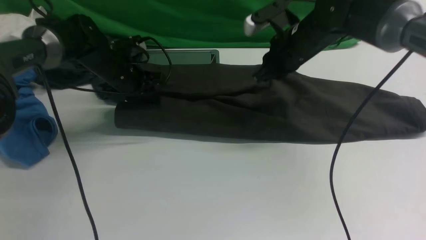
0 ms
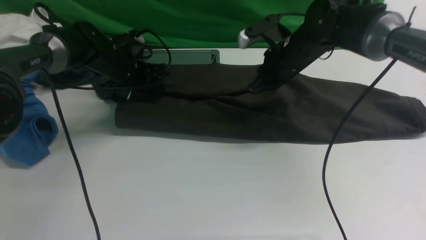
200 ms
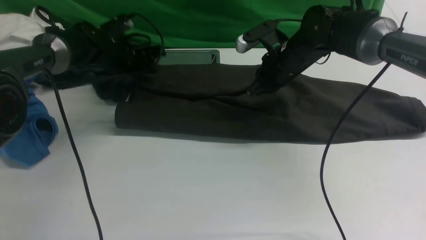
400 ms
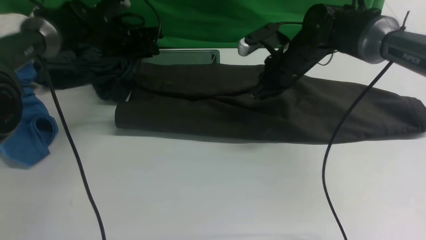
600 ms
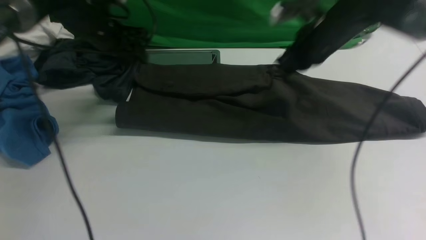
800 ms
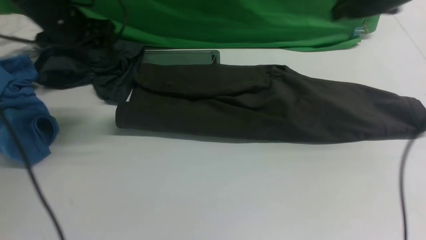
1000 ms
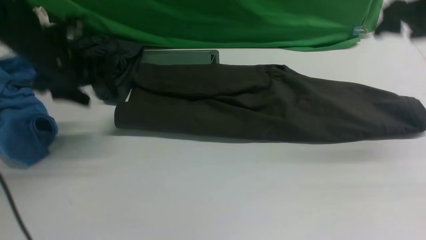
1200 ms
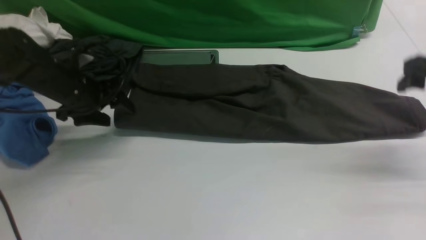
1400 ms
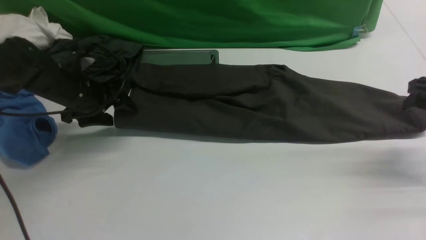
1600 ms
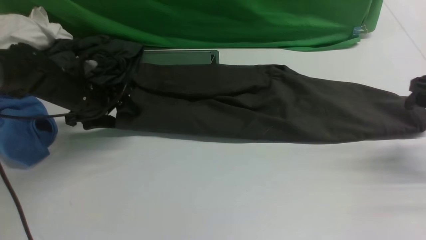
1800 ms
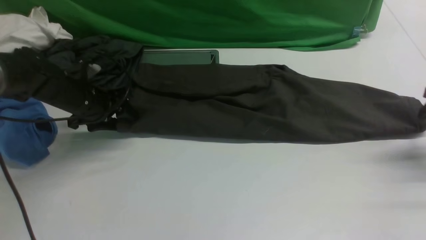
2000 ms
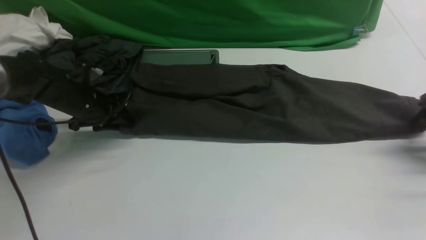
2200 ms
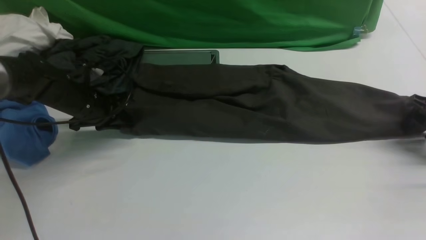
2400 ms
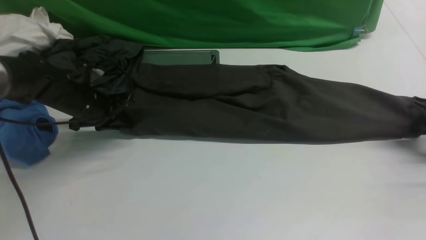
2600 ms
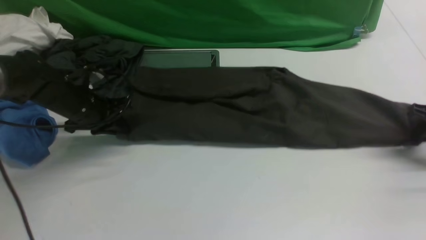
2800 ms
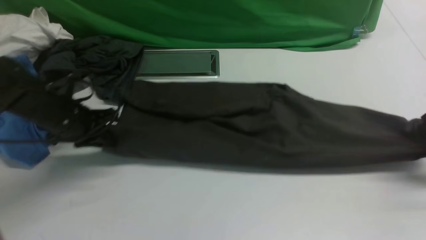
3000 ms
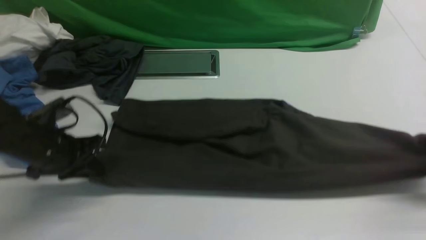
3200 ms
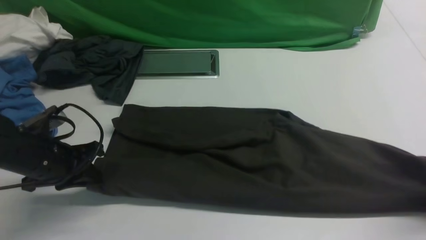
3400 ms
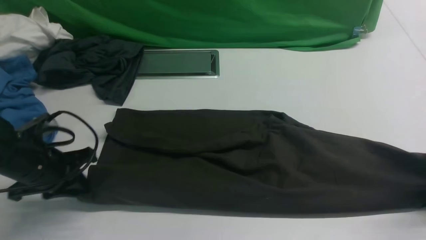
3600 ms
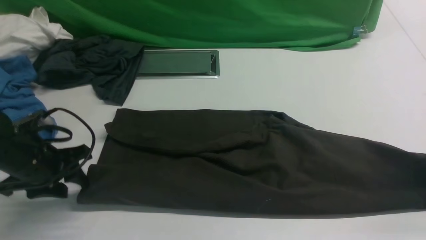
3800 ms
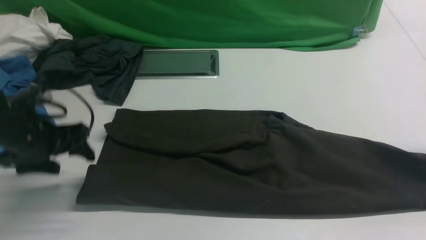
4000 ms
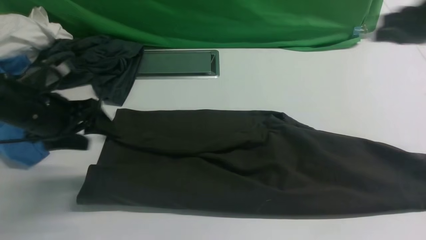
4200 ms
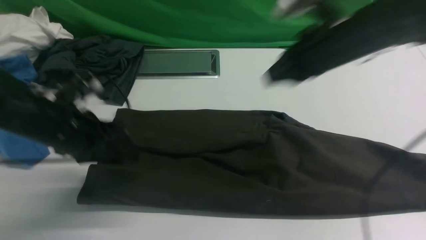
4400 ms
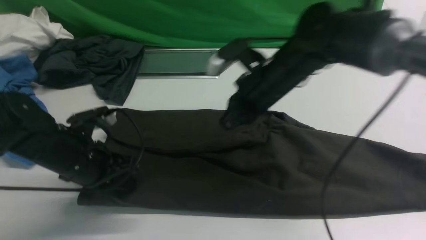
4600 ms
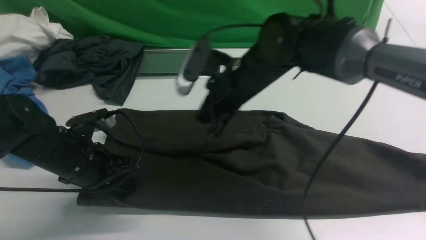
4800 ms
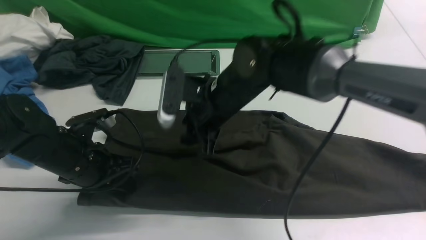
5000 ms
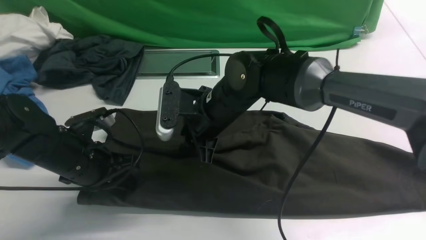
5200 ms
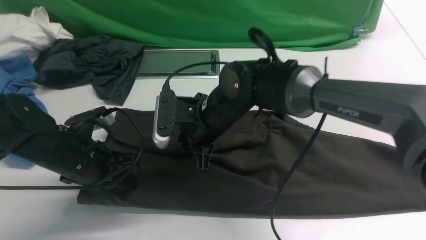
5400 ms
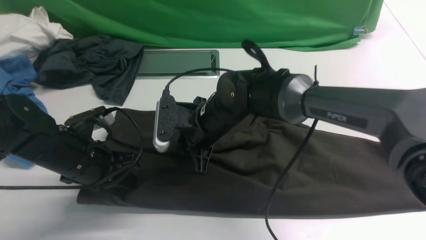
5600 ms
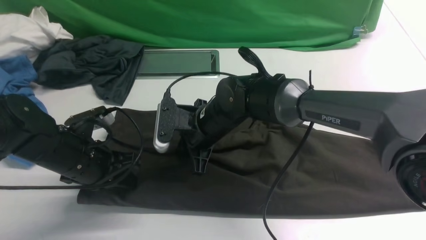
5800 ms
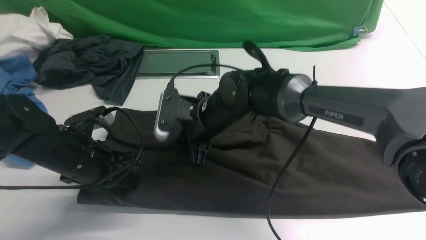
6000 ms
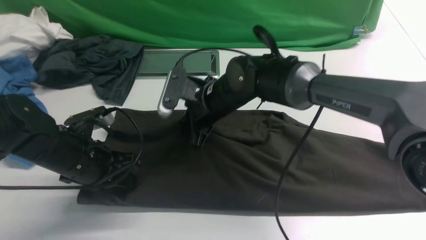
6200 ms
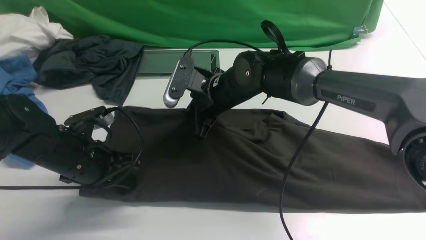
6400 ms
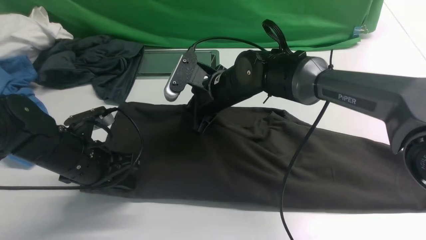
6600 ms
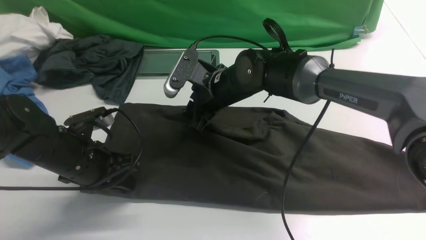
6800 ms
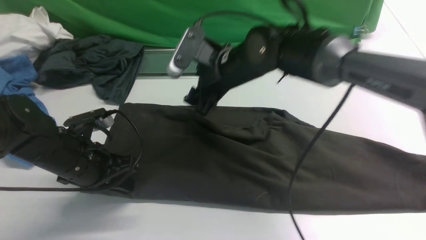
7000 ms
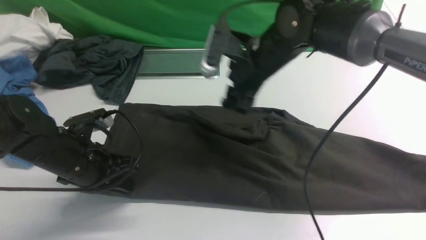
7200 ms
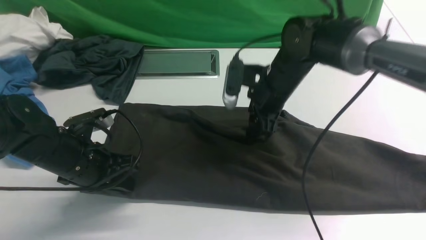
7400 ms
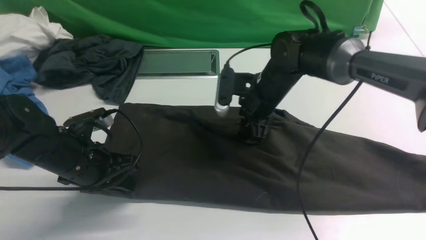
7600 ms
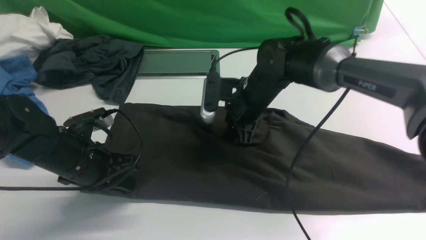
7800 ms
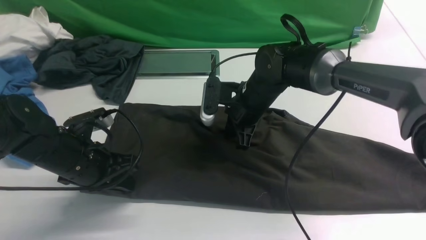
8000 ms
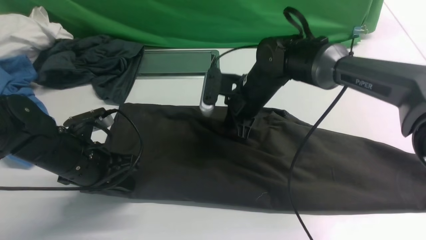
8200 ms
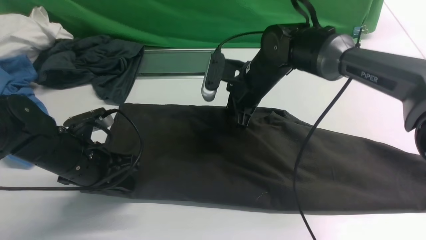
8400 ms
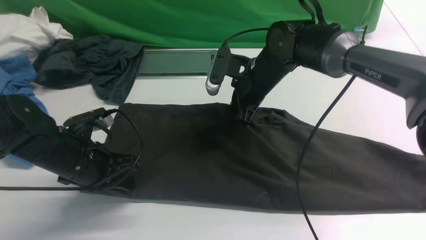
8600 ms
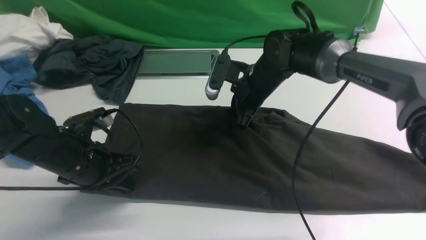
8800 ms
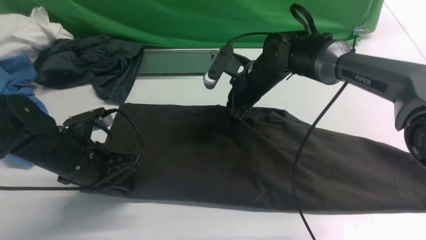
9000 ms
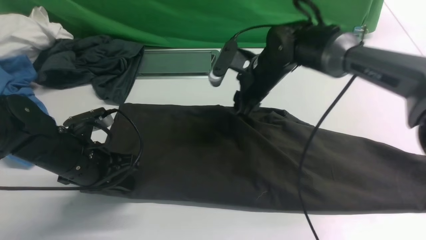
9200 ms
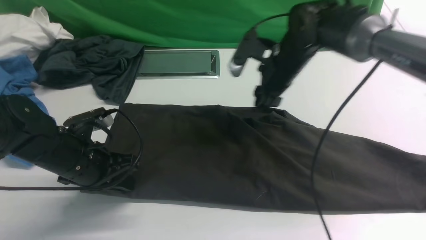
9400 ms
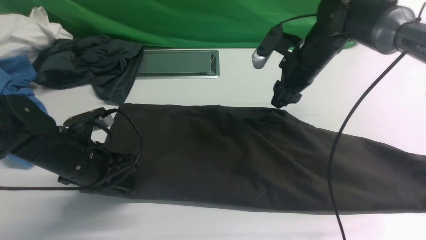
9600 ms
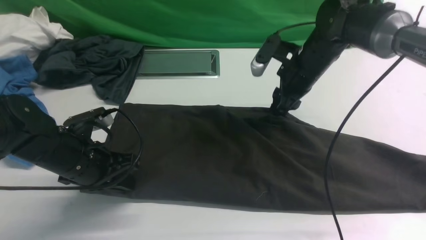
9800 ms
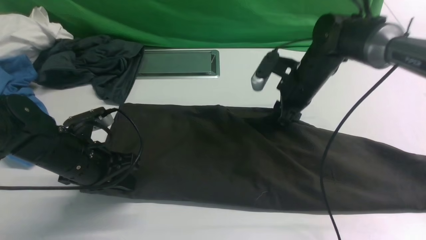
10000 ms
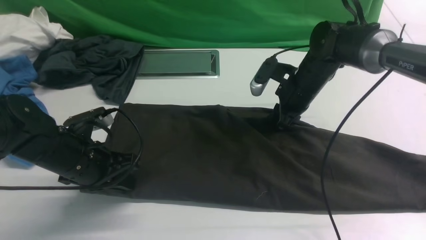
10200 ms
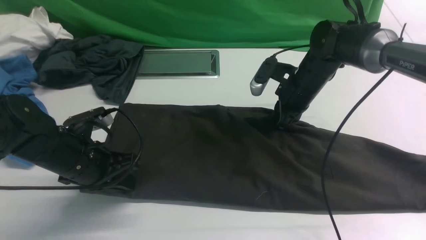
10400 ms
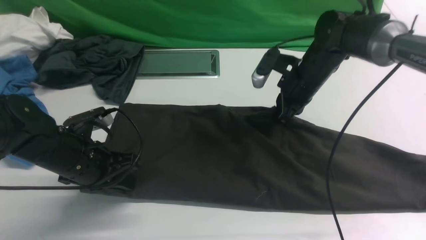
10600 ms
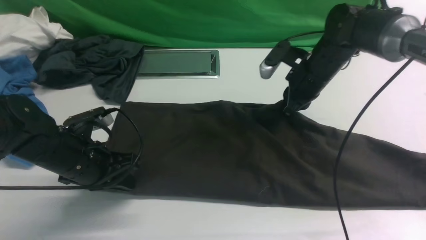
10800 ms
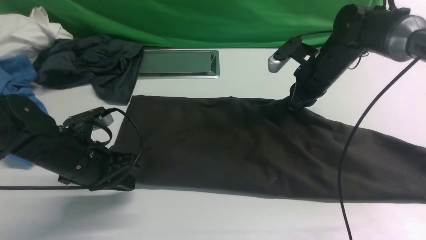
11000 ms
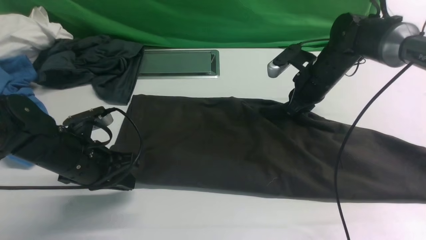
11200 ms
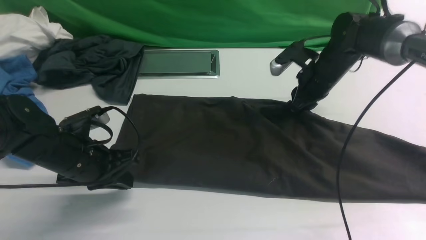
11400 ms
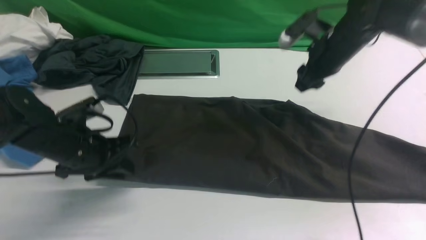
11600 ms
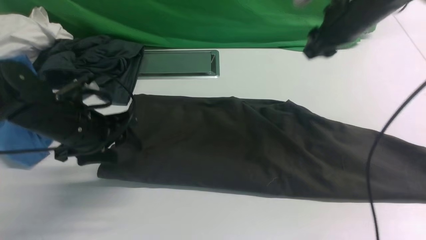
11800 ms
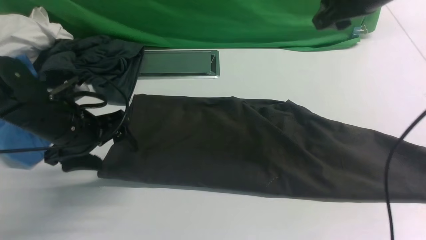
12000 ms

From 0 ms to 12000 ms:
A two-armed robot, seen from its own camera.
Step, from 0 ms to 11400 ms: use both arms to drag the lower edge of the fabric forward and fold it over the upper edge.
From 0 ms to 1600 ms: The right gripper is displaced to the right and backward by some 25 cm, and opens up; the left gripper heads backward and to the left, covering approximately 10 cm, and opens.
From 1600 ms to 3000 ms: The right gripper shifts approximately 5 cm downward, and closes. Meanwhile the left gripper is displaced backward by approximately 5 cm, and closes up.
From 3000 ms to 4400 ms: The left gripper goes roughly 5 cm backward, and opens and closes again. Meanwhile the right gripper moves to the left, roughly 25 cm, and opens, then closes again.
From 4400 ms to 6000 ms: The right gripper travels to the left and downward by about 20 cm, and opens and closes again. Meanwhile the left gripper closes its fingers.
From 6000 ms to 7600 ms: The right gripper moves to the right, roughly 10 cm, and opens.
From 7600 ms to 9000 ms: The right gripper closes its fingers.
From 9000 ms to 10400 ms: The right gripper is displaced to the right by some 10 cm, and opens and closes again.
From 10400 ms to 12000 ms: The right gripper is displaced upward by approximately 20 cm, and opens up; the left gripper opens its fingers.

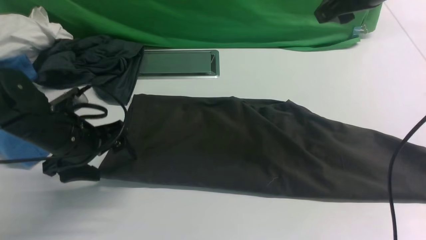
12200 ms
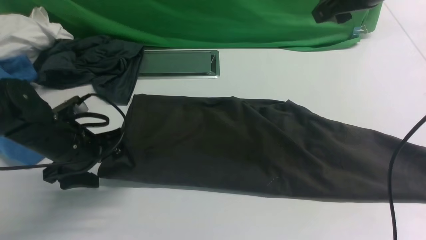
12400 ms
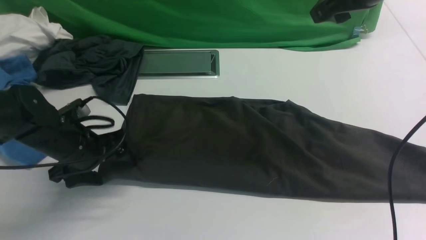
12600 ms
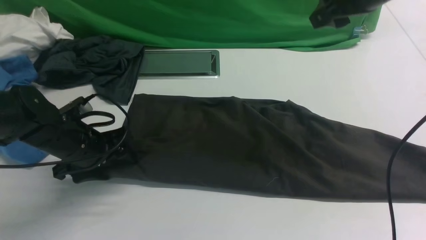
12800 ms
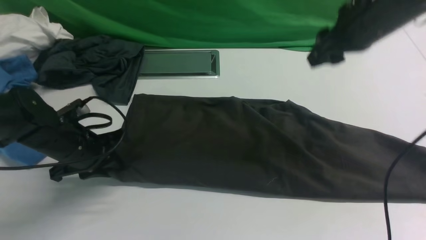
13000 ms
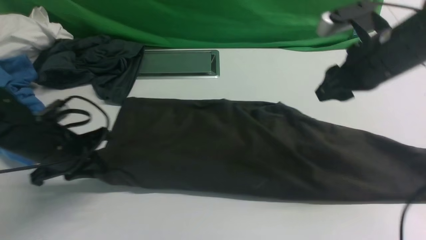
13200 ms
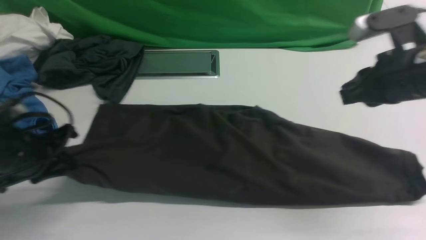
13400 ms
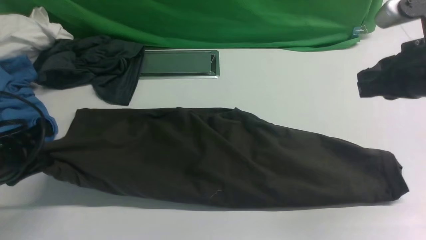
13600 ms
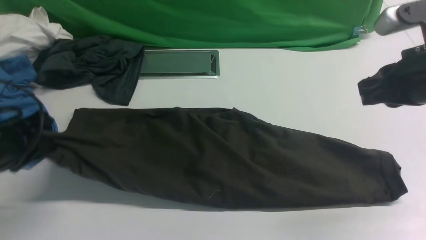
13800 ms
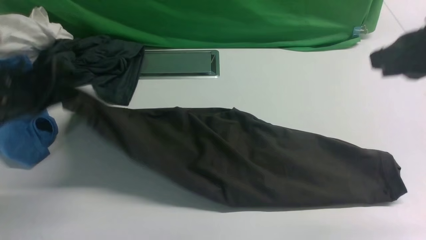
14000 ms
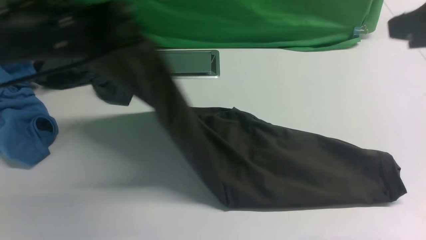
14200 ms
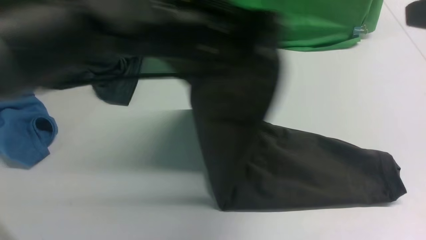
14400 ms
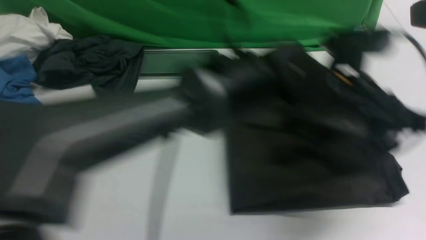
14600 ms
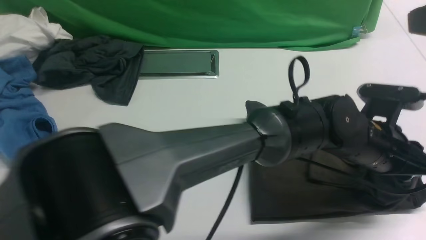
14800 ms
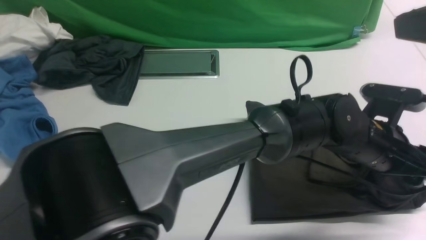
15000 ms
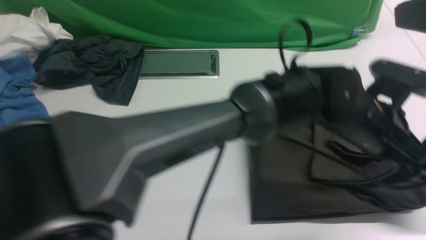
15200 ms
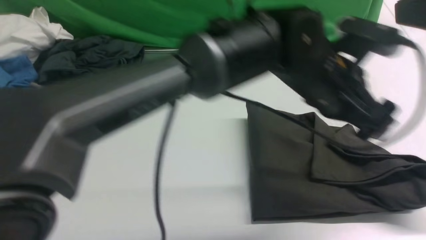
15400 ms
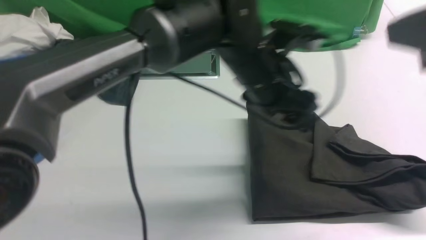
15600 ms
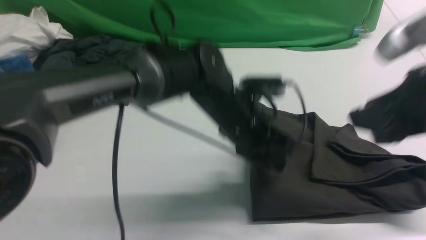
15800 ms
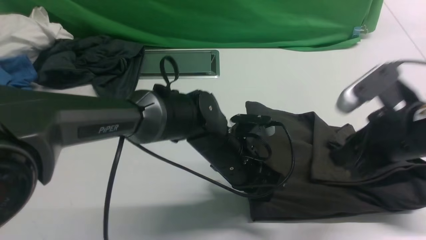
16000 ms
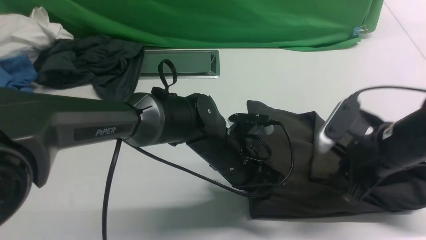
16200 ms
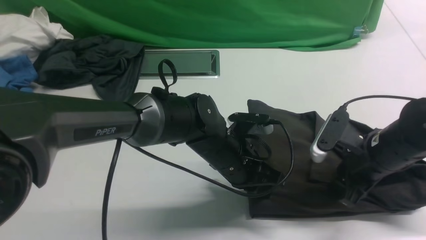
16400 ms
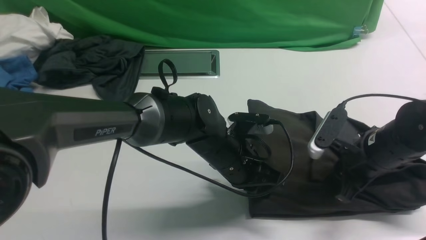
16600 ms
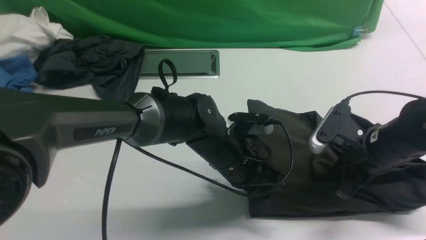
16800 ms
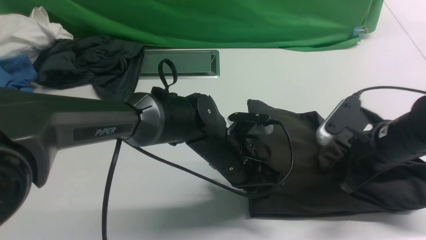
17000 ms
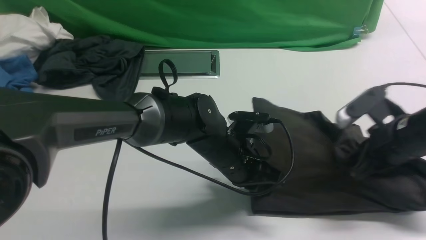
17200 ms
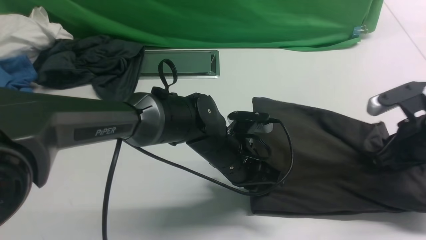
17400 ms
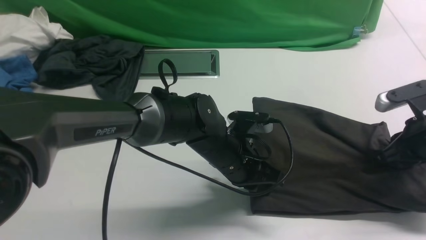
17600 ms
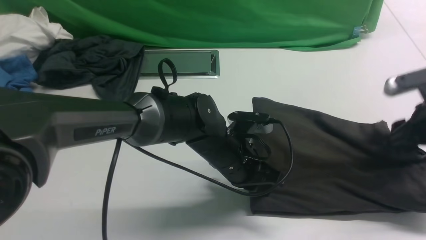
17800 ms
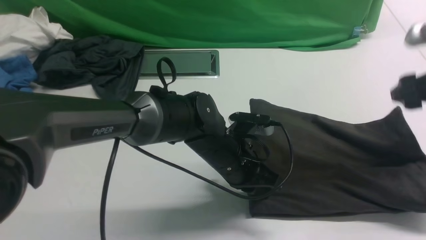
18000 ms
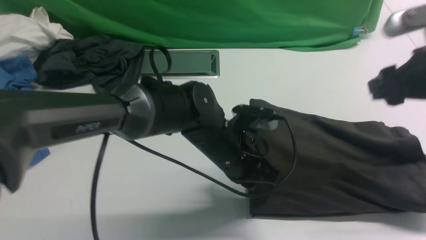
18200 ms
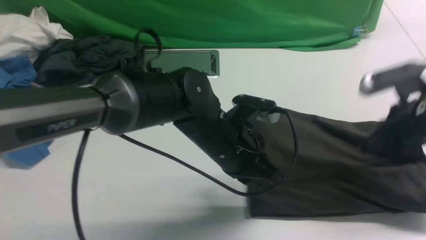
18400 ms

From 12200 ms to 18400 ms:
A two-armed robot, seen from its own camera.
Step, from 12200 ms to 13000 ms: Hold the left edge of the fabric with your left arm.
From 12200 ms to 13800 ms: The left gripper goes roughly 10 cm to the left and upward, and closes its fingers. The right gripper moves backward, roughly 15 cm, and closes.
From 13800 ms to 15400 ms: The left gripper travels to the right by approximately 40 cm, and opens its fingers; the right gripper moves upward and backward, roughly 10 cm.
From 15400 ms to 16800 ms: The left gripper travels downward and to the left by roughly 15 cm, and closes up, while the right gripper heads downward, covering about 25 cm, and opens, then closes once more.
From 16800 ms to 18400 ms: The right gripper opens, then closes once more; the left gripper shifts roughly 5 cm upward.
